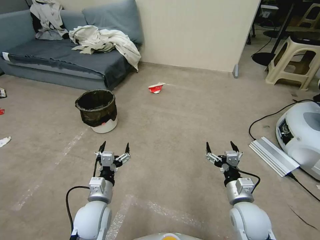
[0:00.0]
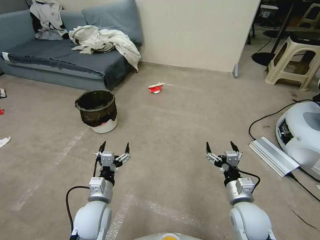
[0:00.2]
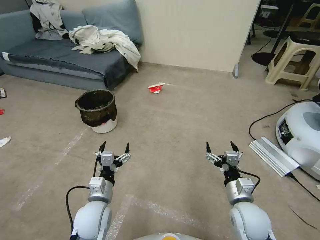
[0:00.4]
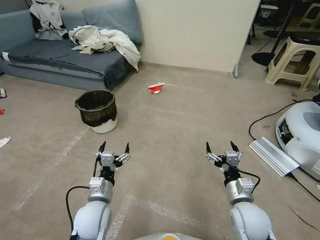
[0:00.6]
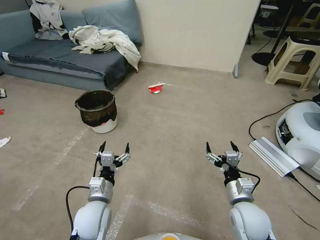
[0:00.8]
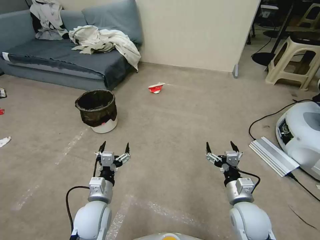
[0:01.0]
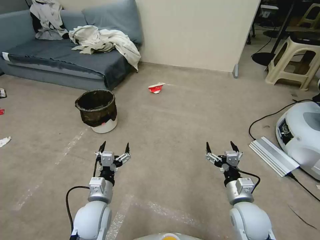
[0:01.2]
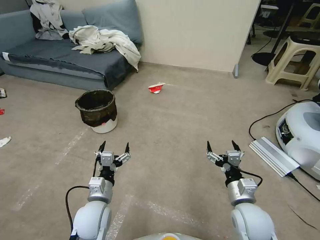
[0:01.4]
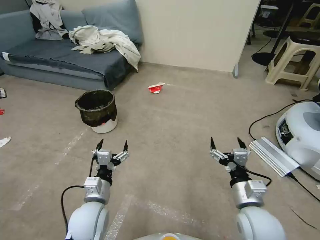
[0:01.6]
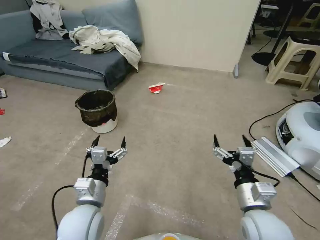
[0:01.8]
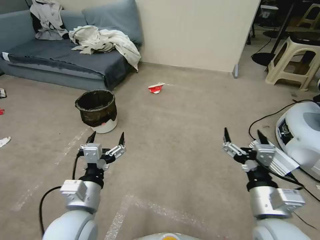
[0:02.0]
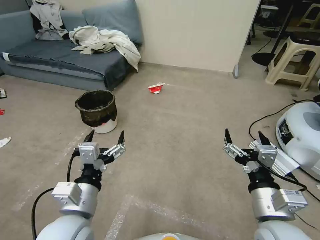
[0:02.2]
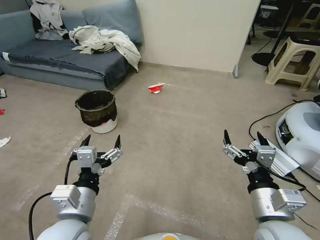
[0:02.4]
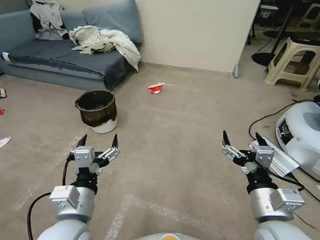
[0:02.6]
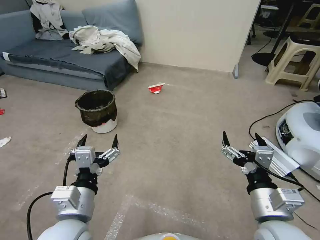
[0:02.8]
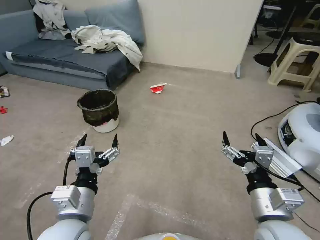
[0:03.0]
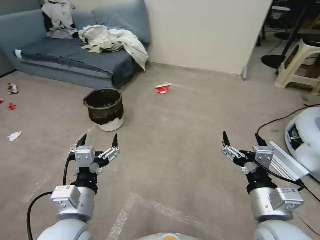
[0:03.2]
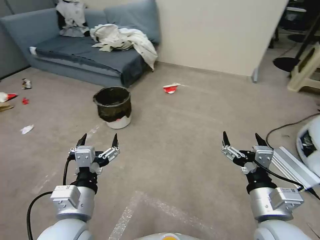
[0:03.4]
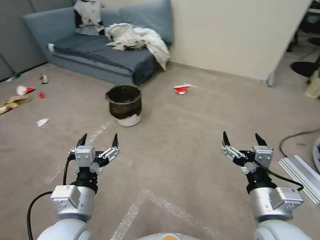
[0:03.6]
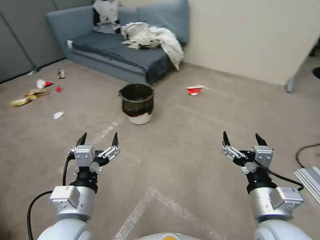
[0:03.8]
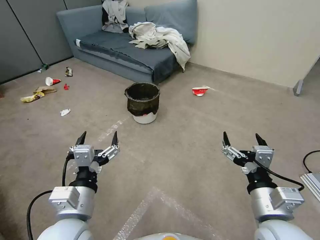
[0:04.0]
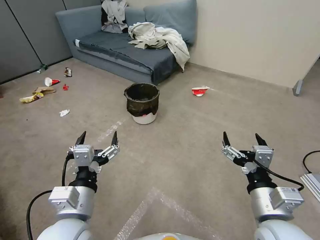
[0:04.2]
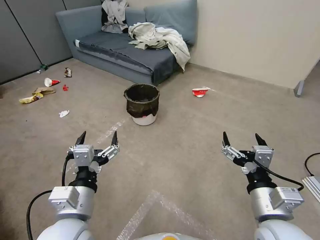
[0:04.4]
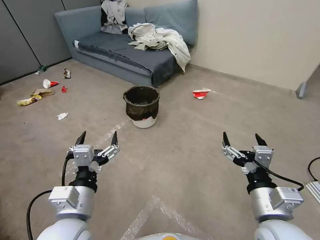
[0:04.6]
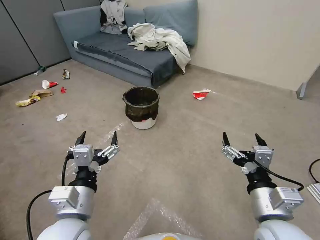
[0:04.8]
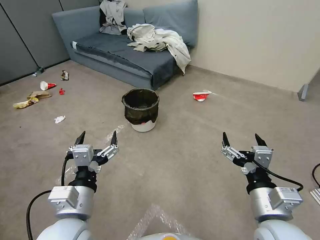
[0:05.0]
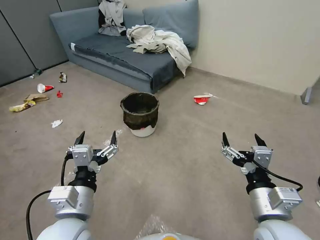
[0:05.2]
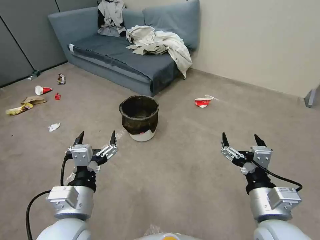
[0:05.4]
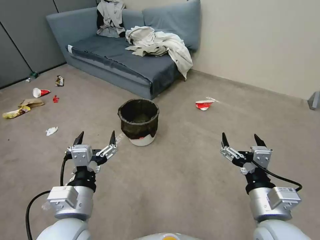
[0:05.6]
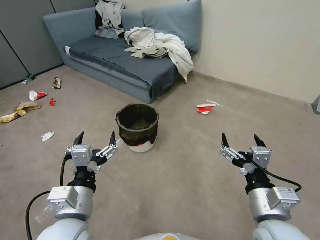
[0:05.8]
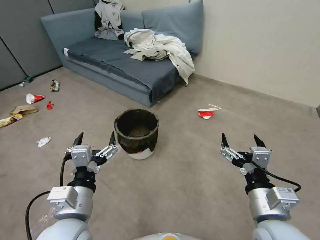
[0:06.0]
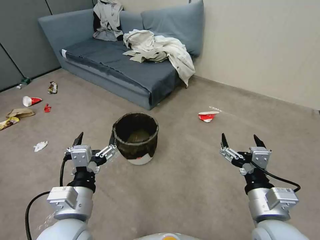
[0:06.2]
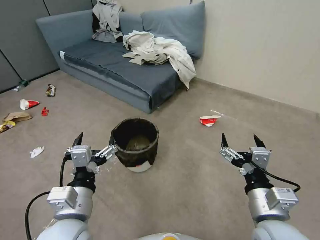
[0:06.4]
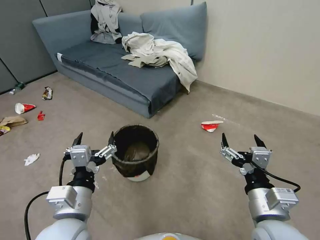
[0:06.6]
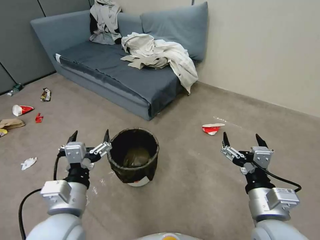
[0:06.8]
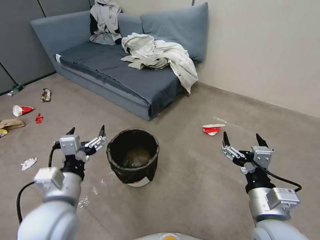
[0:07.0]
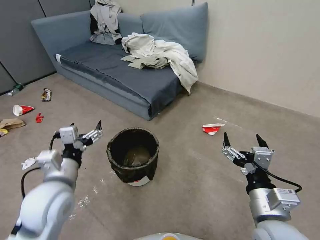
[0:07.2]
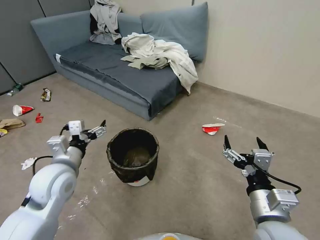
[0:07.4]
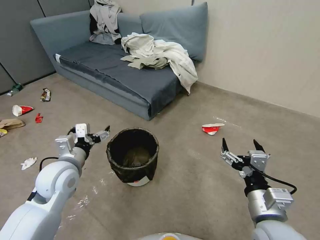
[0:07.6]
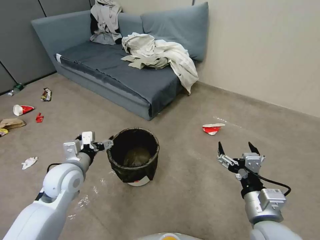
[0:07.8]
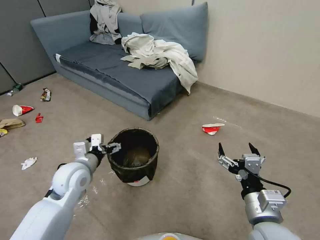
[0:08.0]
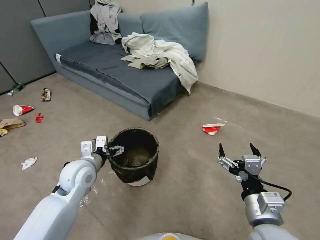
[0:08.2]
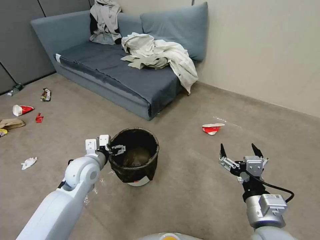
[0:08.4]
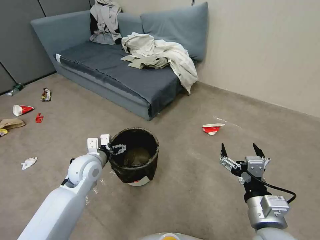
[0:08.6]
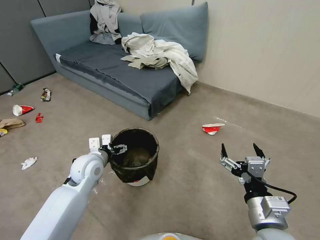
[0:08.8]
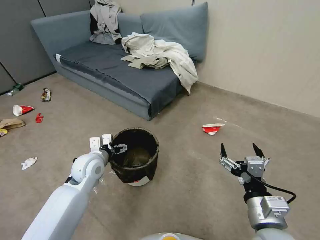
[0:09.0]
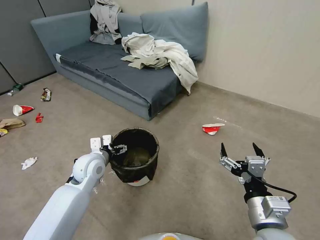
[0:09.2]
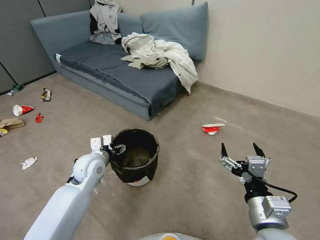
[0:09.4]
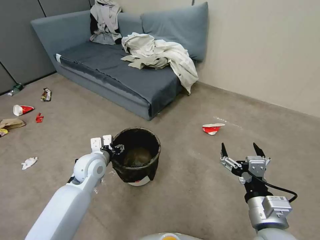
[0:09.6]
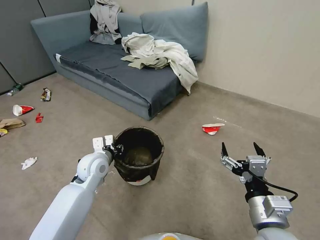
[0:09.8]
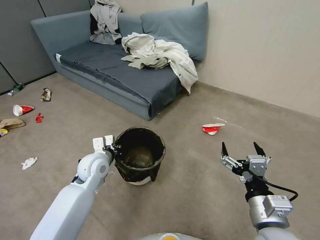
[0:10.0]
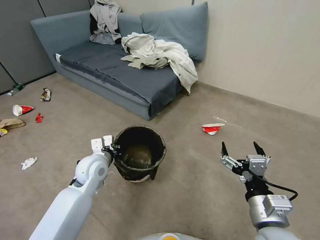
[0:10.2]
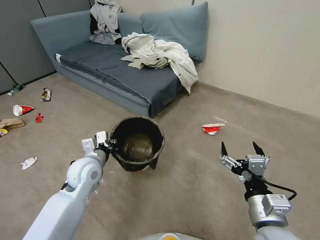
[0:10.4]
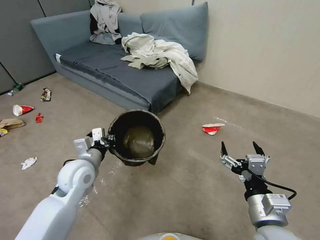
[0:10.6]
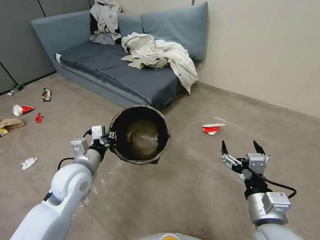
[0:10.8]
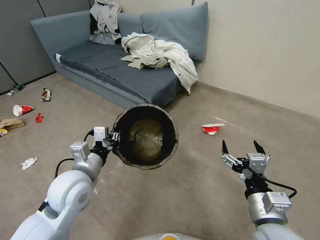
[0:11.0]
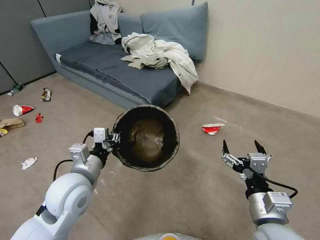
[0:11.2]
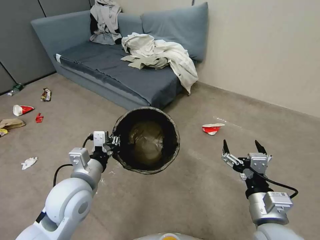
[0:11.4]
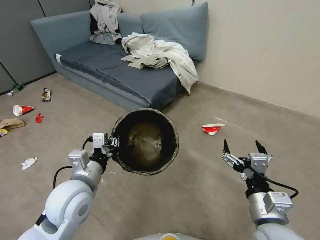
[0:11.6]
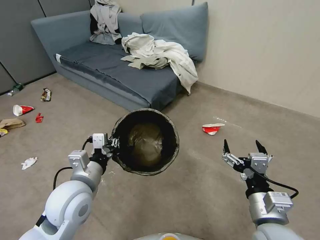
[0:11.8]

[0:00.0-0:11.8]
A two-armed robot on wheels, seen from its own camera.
Task of the whole recording: Pick up the trash can from the floor.
0:01.4 to 0:03.0: Both grippers travel together upward and backward, about 15 cm.
0:06.0 to 0:07.4: The left gripper shifts roughly 15 cm forward and to the left.
0:07.4 to 0:08.8: The left gripper moves downward and forward, roughly 10 cm.
0:08.8 to 0:10.4: The left gripper closes.
0:10.4 to 0:11.8: The left gripper shifts about 10 cm backward and upward.
